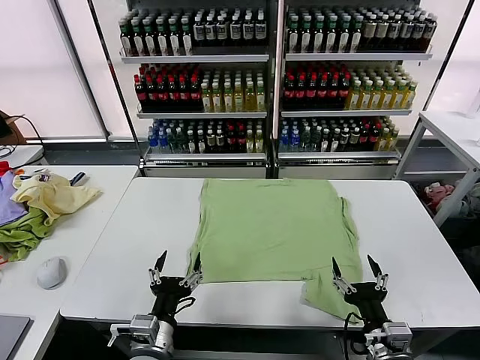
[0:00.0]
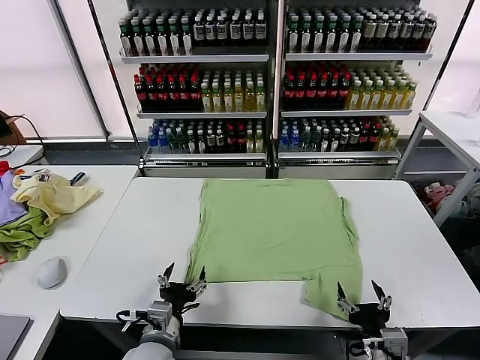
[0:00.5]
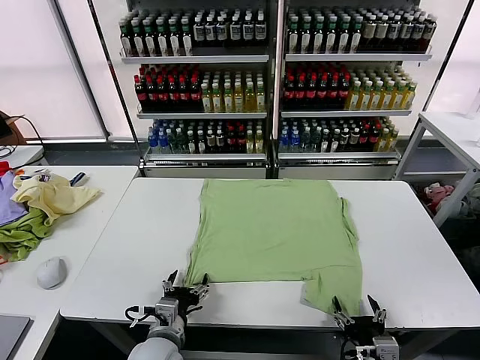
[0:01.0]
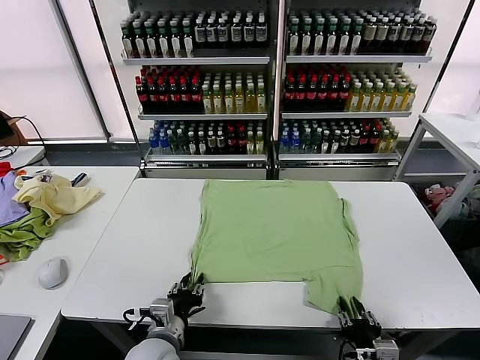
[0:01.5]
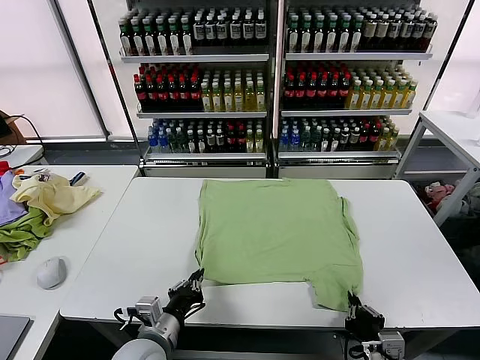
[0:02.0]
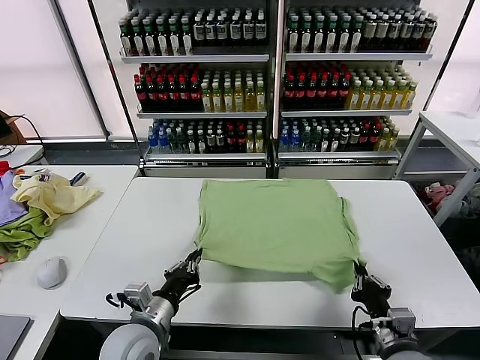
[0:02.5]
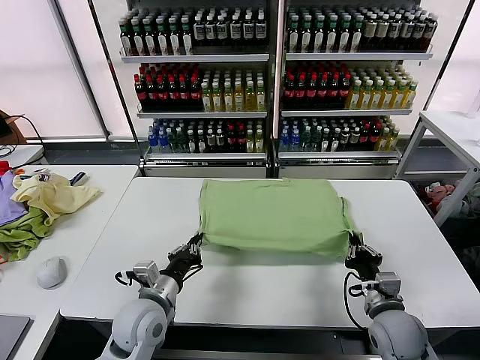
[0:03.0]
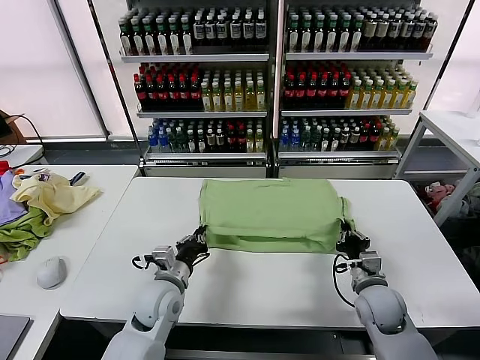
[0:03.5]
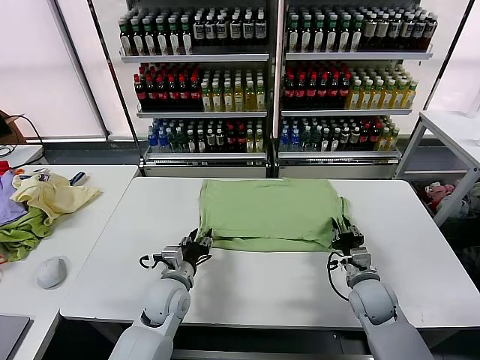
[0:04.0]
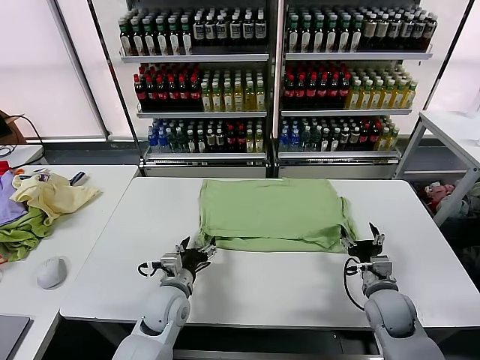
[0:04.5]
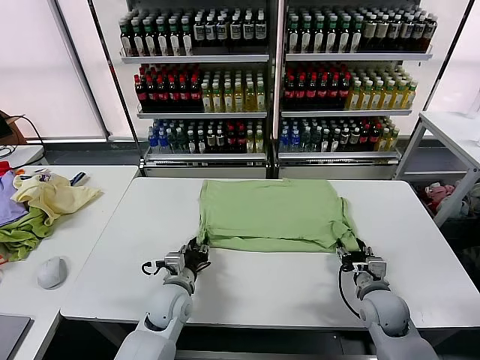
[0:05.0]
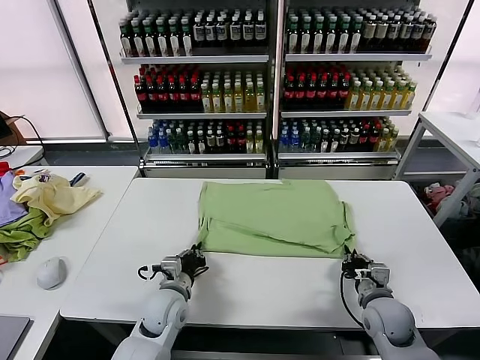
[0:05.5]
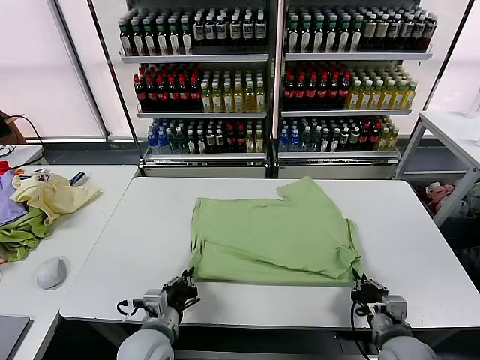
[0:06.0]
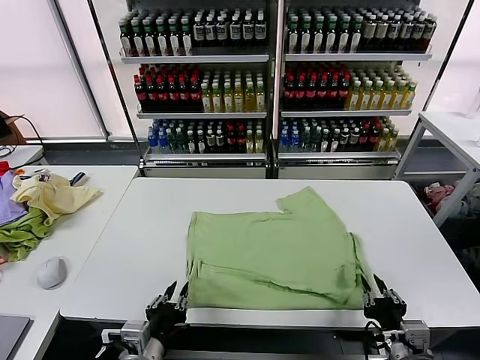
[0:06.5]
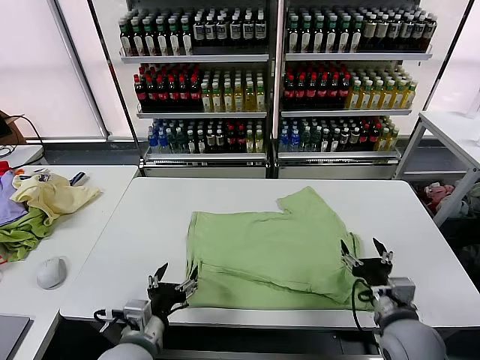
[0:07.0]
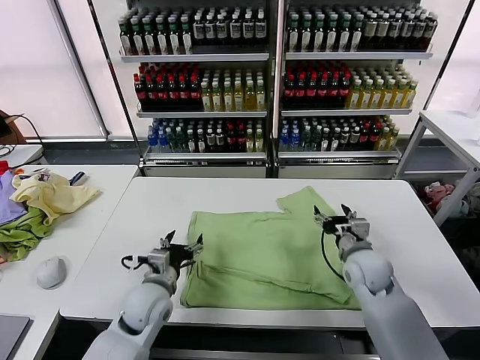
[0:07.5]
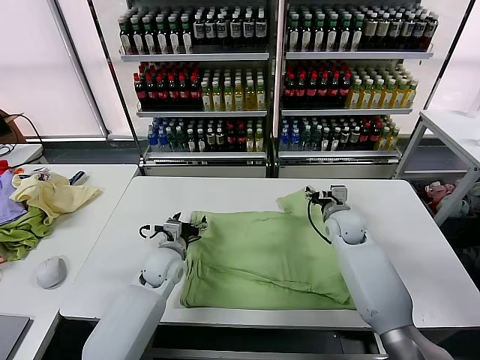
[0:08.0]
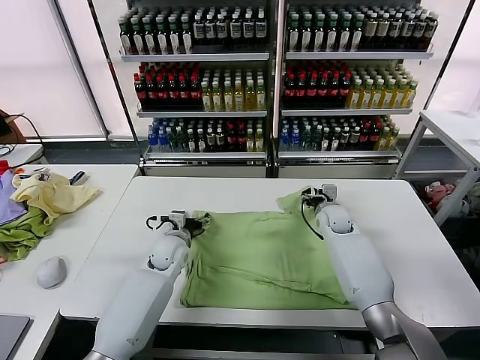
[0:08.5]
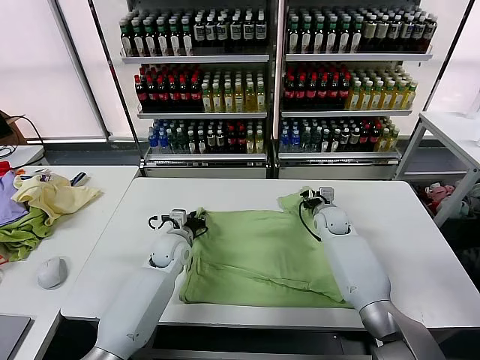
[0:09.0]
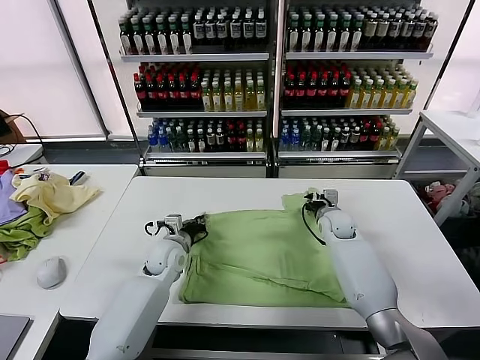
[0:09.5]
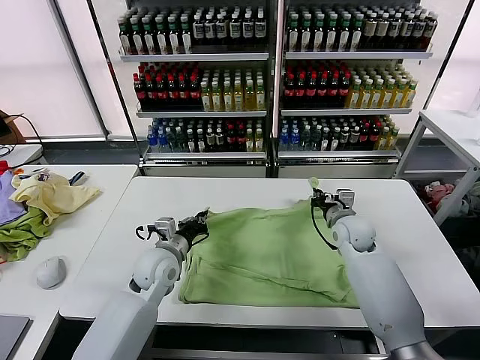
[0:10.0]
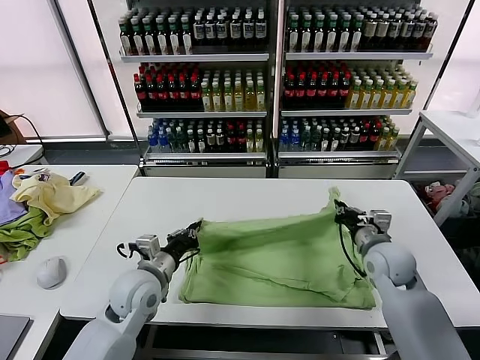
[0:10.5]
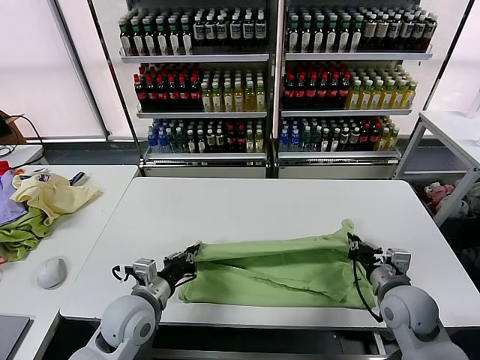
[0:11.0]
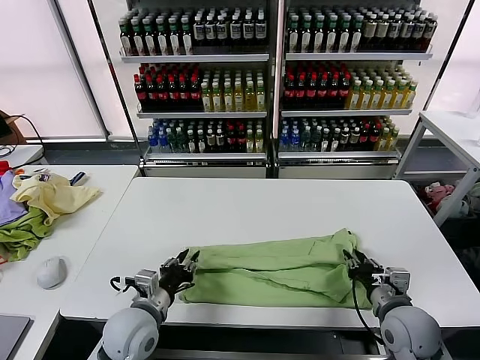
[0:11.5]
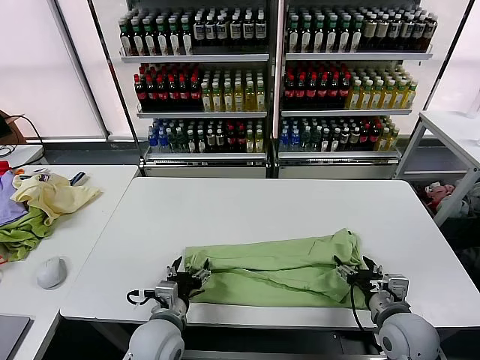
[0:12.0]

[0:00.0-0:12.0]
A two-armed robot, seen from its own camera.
Task of the whole recording: fold and organize the clothes.
Step, 0:00.0 to 0:01.5: use both grippers simultaneously to clamp the lower edge of the clothing fabric.
Step, 0:02.0 to 0:04.0: use both grippers to drag the lower edge of the fabric forward and fold it over the upper edge.
Step, 0:04.5 to 0:06.5: Drag the clothes downward with both gripper.
Step, 0:07.0 to 0:09.0: use both grippers simultaneously to clamp the upper edge of the clothing fabric.
Step, 0:09.5 to 0:11.5: use both grippers to drag the upper edge of the fabric backward and fold it over the lower edge.
0:02.0 to 0:04.0: The grippers both shift forward by roughly 15 cm. The right gripper opens its fingers, while the left gripper opens up.
0:04.0 to 0:06.0: Both grippers move backward, approximately 15 cm. The right gripper closes its fingers, while the left gripper closes its fingers.
0:06.0 to 0:08.0: The left gripper heads forward, covering about 20 cm, and opens up; the right gripper shifts roughly 35 cm forward, and opens.
0:08.0 to 0:10.0: The left gripper closes its fingers; the right gripper shifts about 5 cm backward, and closes its fingers.
0:10.0 to 0:12.0: The left gripper goes approximately 15 cm backward, and opens its fingers, while the right gripper moves backward, approximately 20 cm, and opens up.

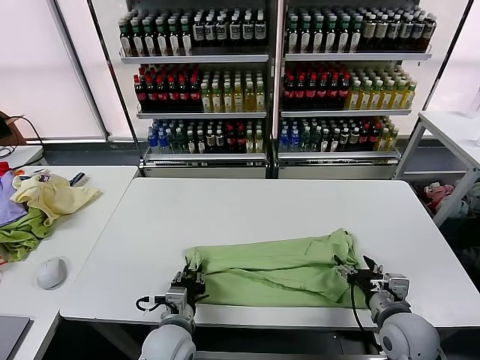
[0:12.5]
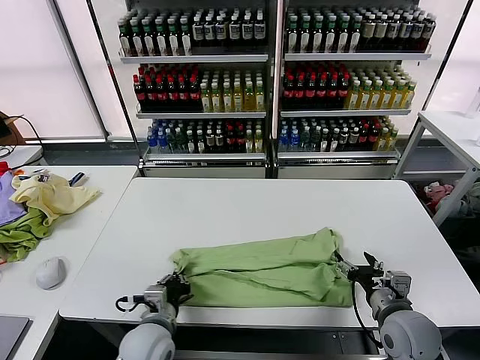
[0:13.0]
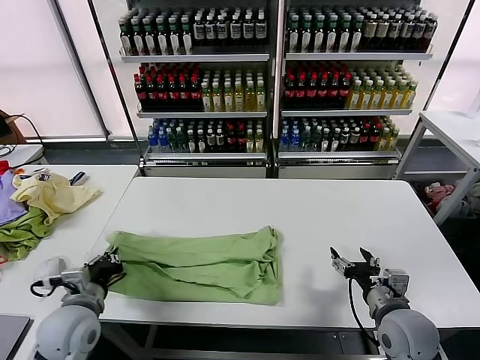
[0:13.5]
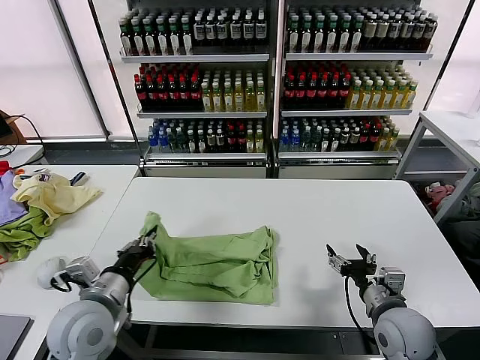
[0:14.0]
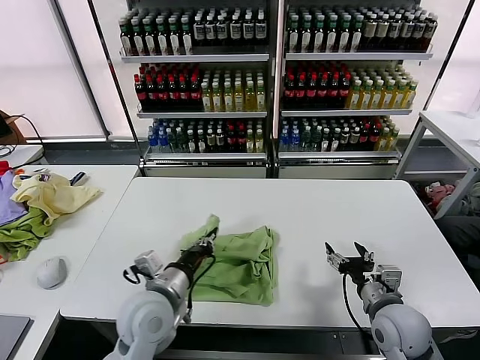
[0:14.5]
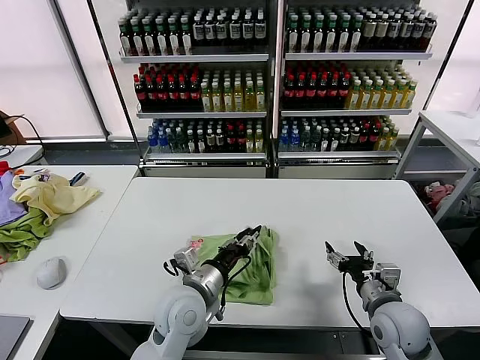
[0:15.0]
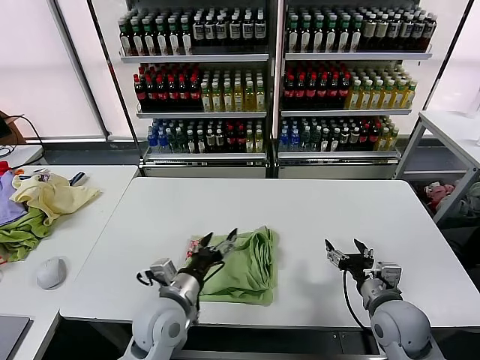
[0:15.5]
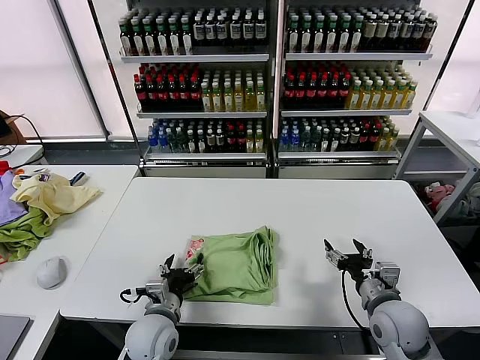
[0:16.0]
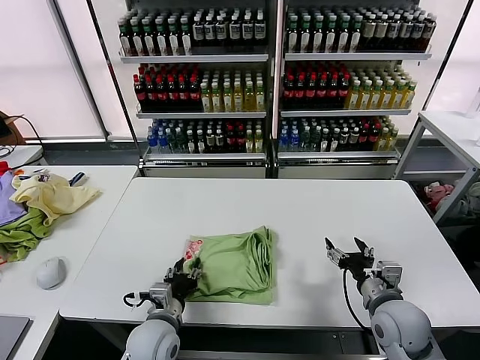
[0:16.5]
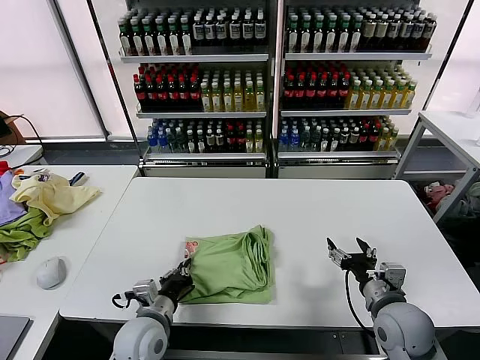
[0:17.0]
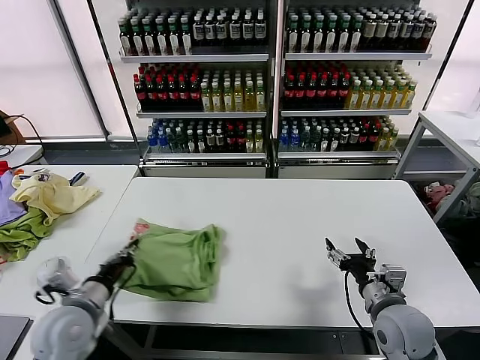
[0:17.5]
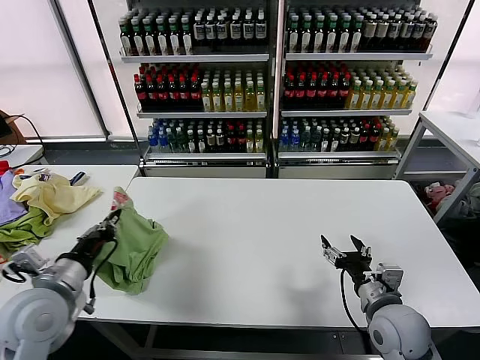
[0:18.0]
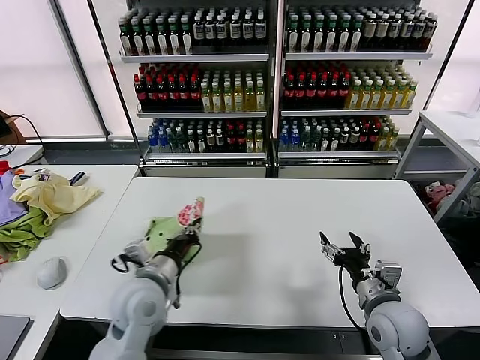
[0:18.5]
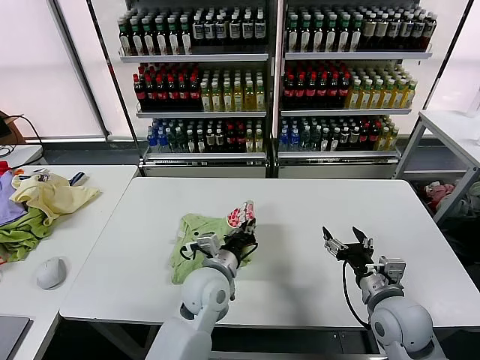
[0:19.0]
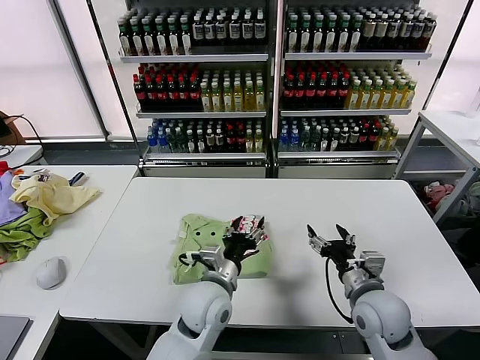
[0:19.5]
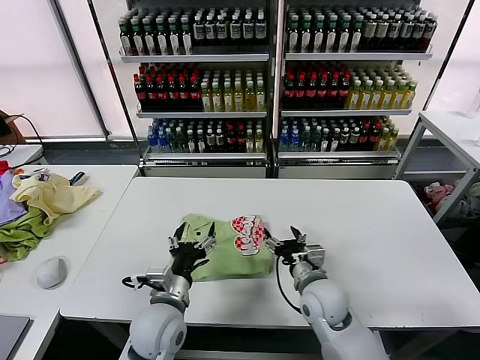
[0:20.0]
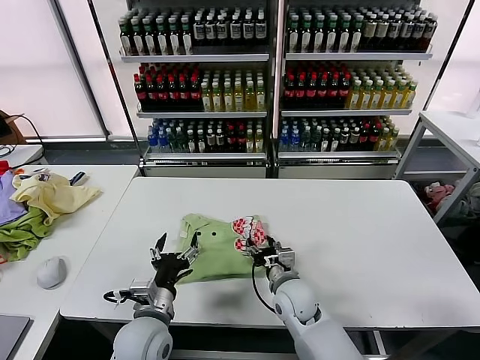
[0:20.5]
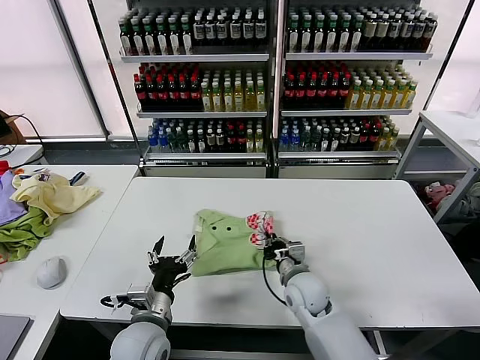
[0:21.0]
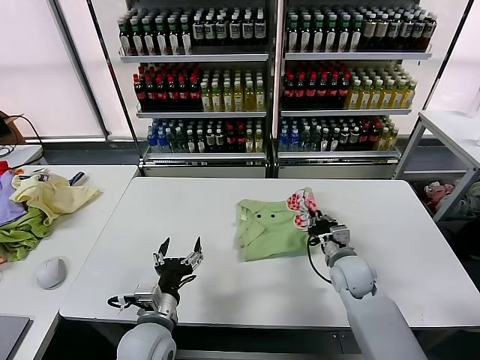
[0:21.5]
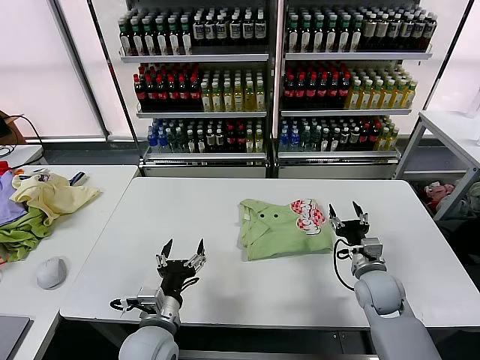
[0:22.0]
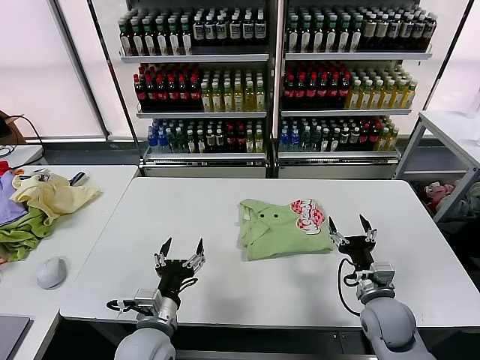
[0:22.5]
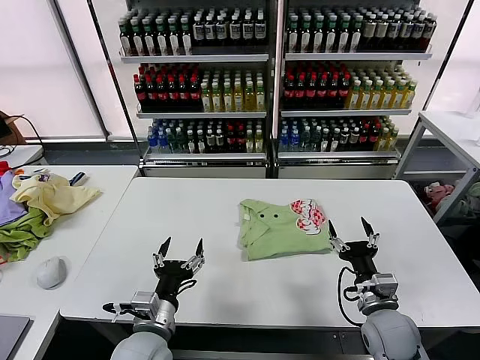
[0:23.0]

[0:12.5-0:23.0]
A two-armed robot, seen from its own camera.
Task of the whole recording: fold and organize the clothes.
Step, 0:13.0 to 0:15.0: use the left gripper to drag the left edge of the fabric to the left and folds it over the right edge.
Step, 0:15.5 to 0:19.0: Flip the folded clothes over with left gripper.
Step, 0:19.5 to 0:21.5: Drag the clothes to the center of the table.
0:12.5 to 0:14.5: The left gripper goes roughly 10 cm upward, and moves roughly 15 cm to the left and comes back.
0:14.5 to 0:16.5: The left gripper shifts some 10 cm downward, and opens.
0:16.5 to 0:19.0: The left gripper heads to the right, forward and upward, covering some 15 cm, and closes up.
0:19.0 to 0:21.0: The right gripper heads to the left, forward and downward, covering approximately 20 cm, and closes its fingers. Meanwhile the left gripper goes approximately 15 cm to the left and backward, and opens.
0:21.0 to 0:23.0: The right gripper heads to the right and backward, covering roughly 20 cm, and opens up.

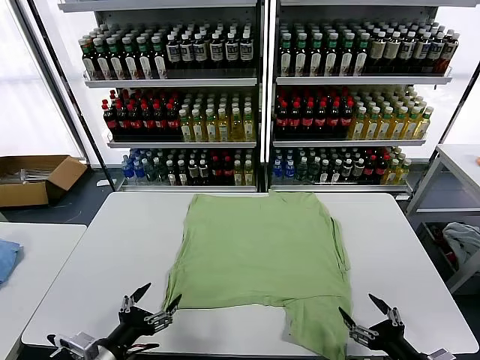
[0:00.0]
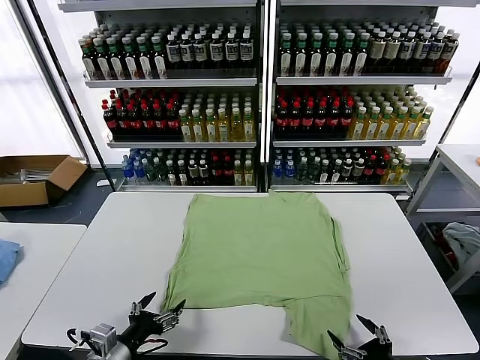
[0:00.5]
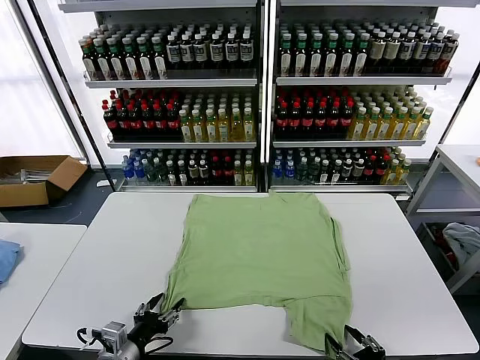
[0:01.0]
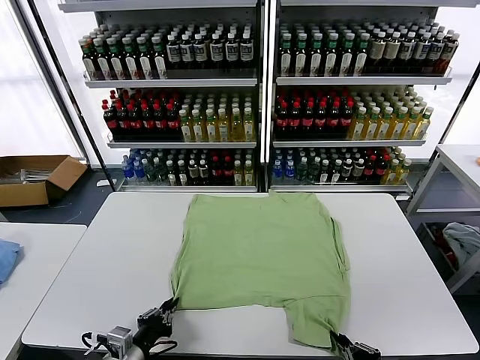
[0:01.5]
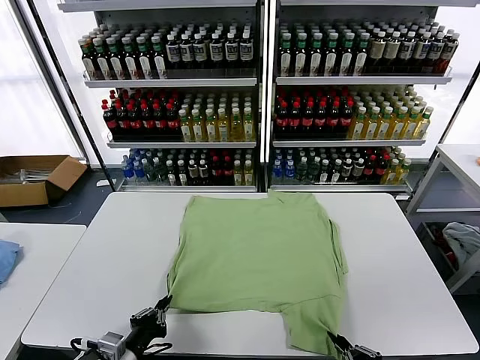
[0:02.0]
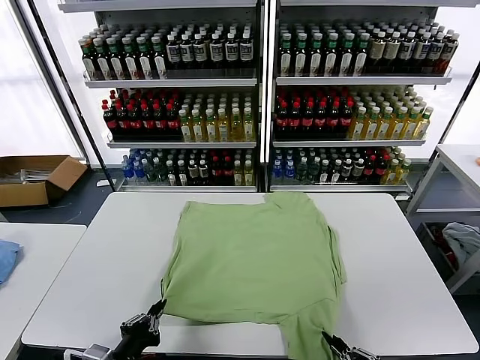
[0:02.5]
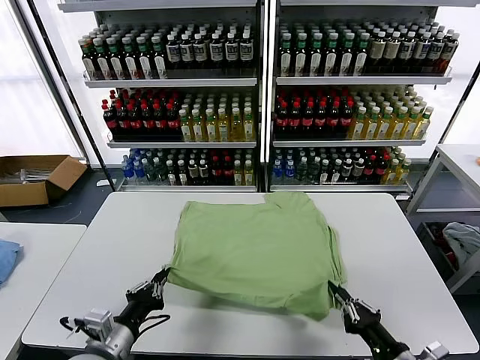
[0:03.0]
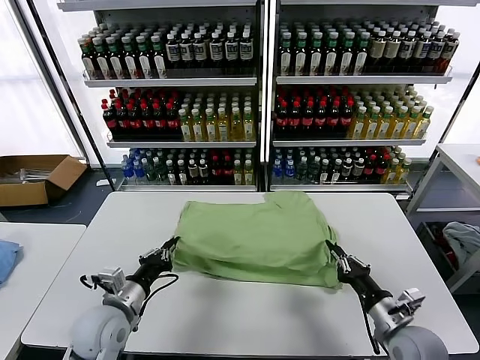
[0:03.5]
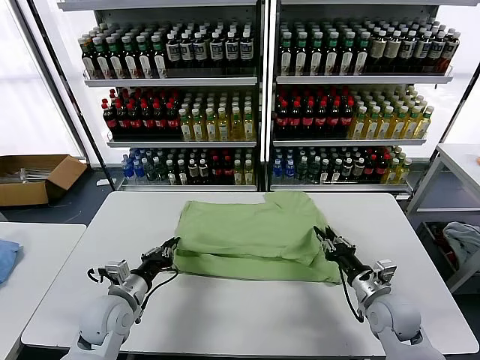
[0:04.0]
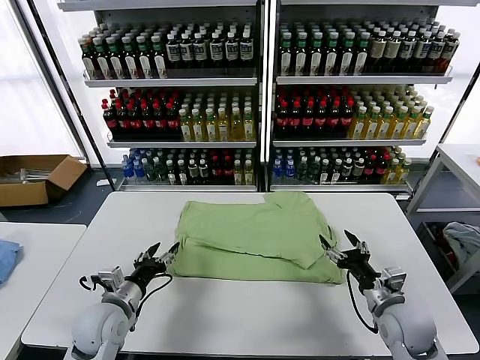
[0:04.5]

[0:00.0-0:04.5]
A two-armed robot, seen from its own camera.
Task of the whole recording: fold and organize the clothes.
Step, 0:00.0 to 0:01.5: use both grippers simultaneously to clamp the lower edge of the clothing fabric.
Step, 0:02.0 to 0:04.0: use both grippers to drag the lower edge of the fabric forward and fold it over the upper edge.
0:02.0 to 0:04.5: Both grippers move forward, roughly 15 cm. The right gripper opens its fingers. The left gripper opens.
